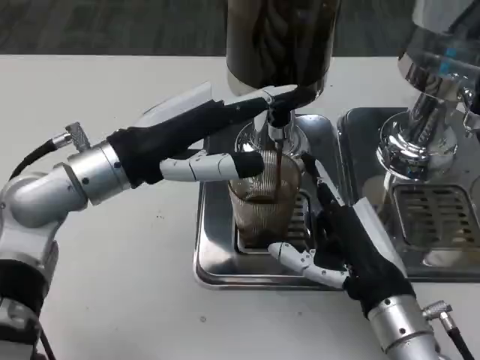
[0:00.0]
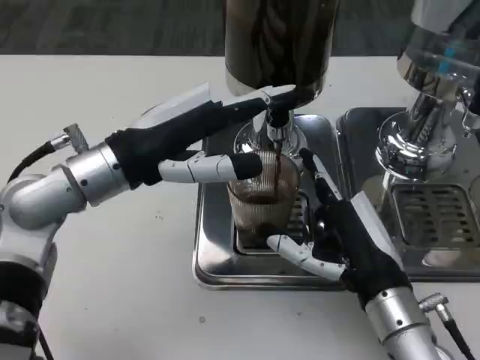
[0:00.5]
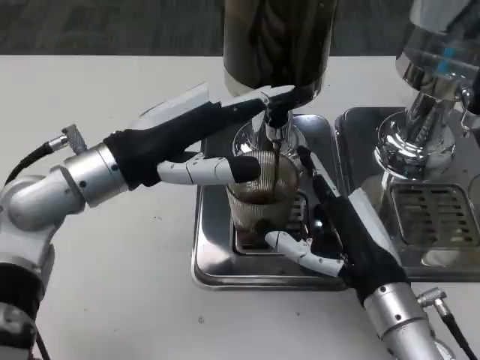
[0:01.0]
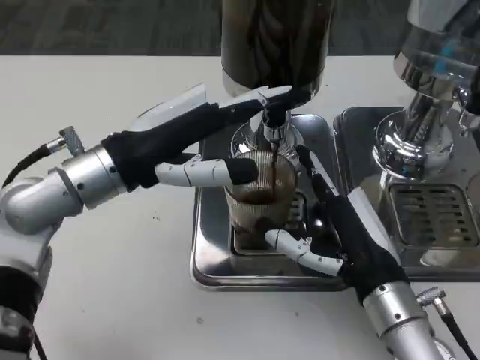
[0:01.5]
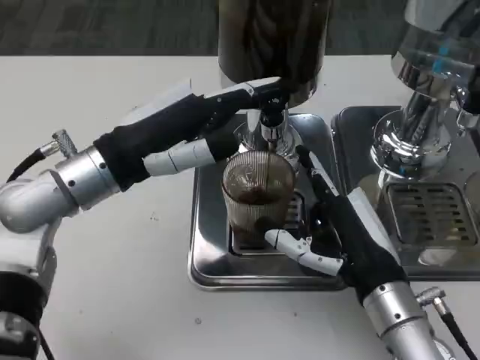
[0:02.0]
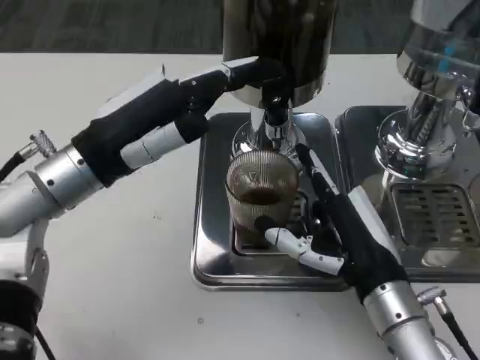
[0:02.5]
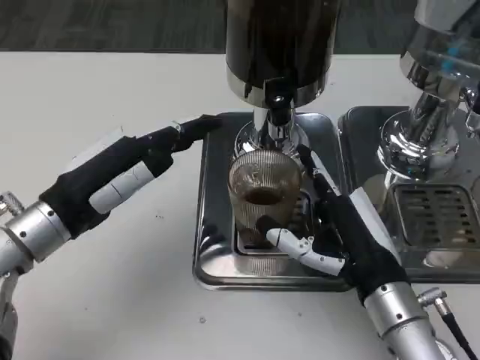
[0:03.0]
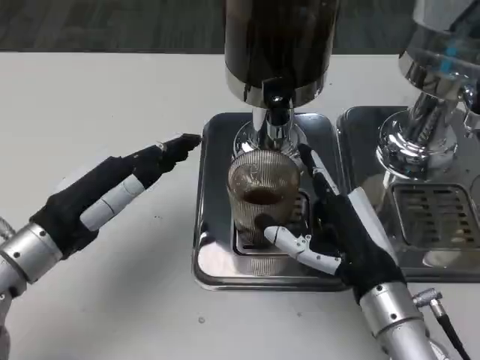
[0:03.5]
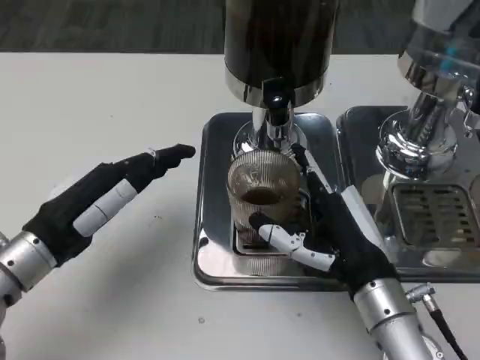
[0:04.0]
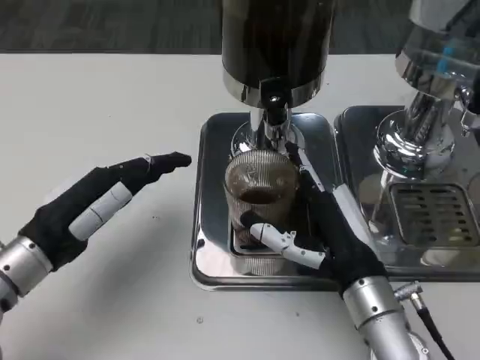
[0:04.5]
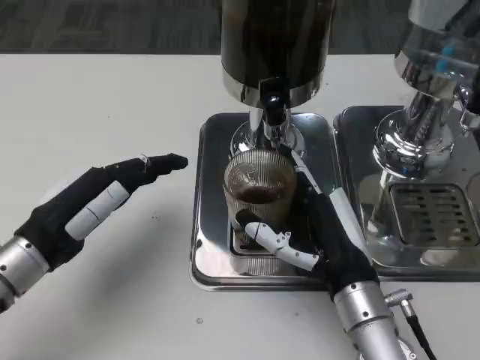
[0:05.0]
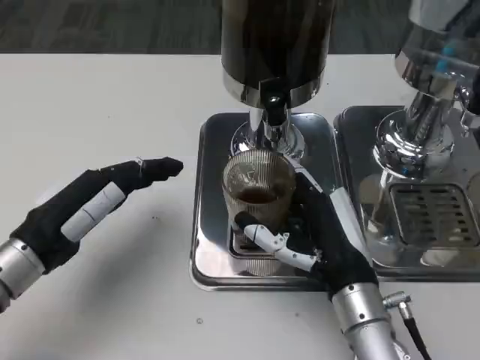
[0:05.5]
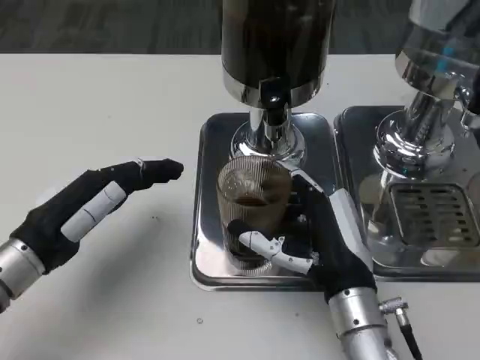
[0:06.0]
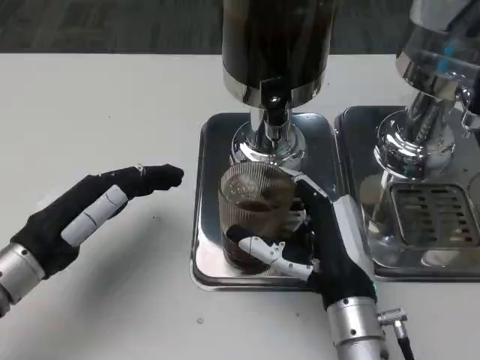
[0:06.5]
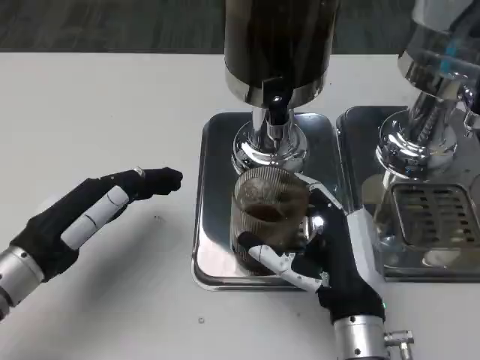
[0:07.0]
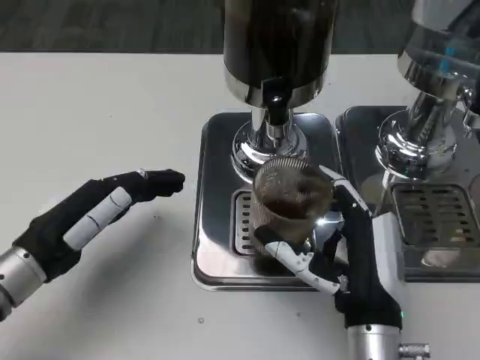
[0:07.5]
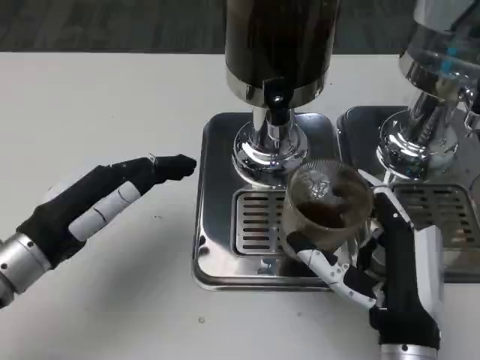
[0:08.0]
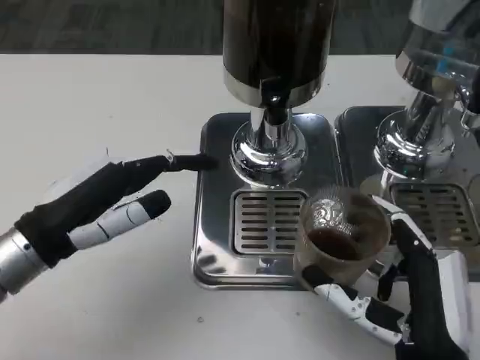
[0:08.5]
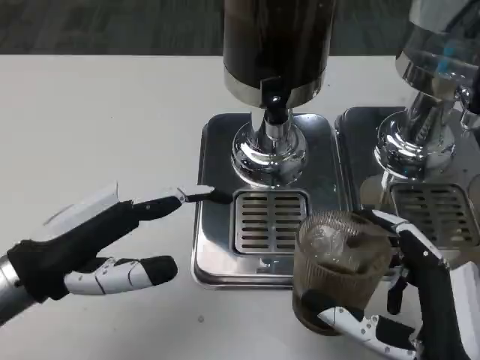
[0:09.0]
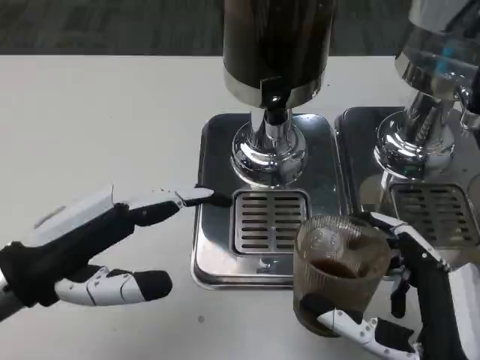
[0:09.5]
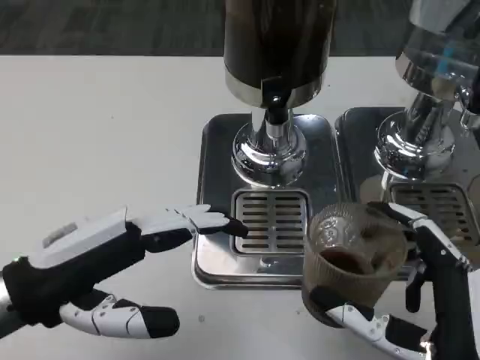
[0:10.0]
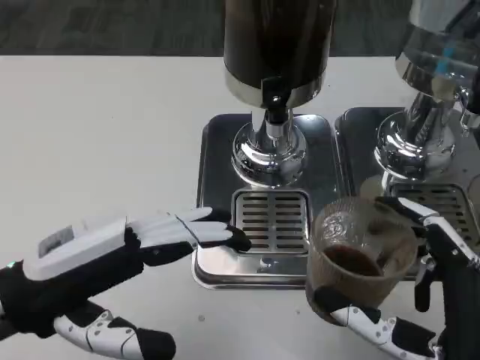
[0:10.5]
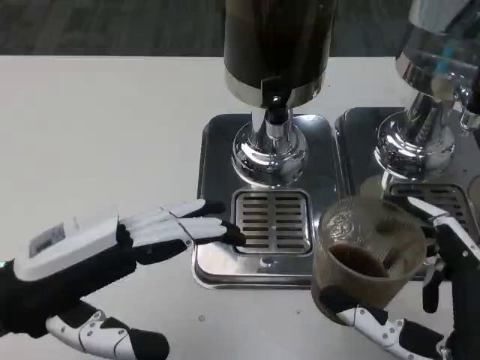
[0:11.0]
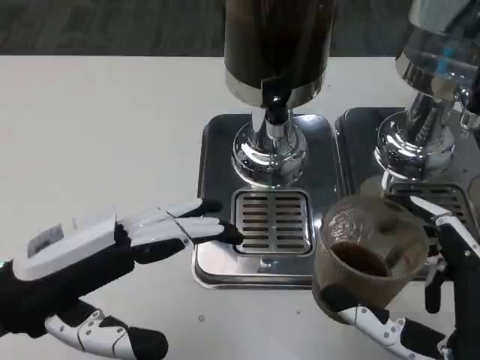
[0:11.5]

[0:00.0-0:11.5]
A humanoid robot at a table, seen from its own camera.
Task of the whole recording: Grasp the cup under the faucet to collect the drink, then remove the cup.
0:02.0 to 0:04.0: The left hand heads downward, to the left and backward, covering approximately 10 cm.
0:07.5 to 0:09.5: The right hand moves backward and to the right, roughly 10 cm. Meanwhile the left hand goes roughly 5 cm upward.

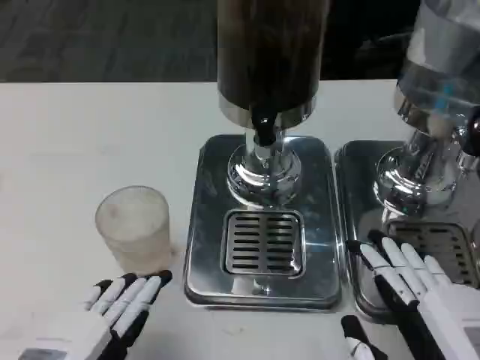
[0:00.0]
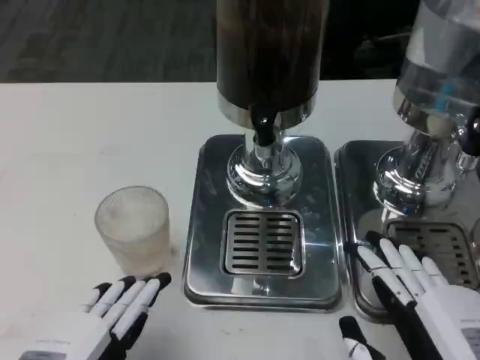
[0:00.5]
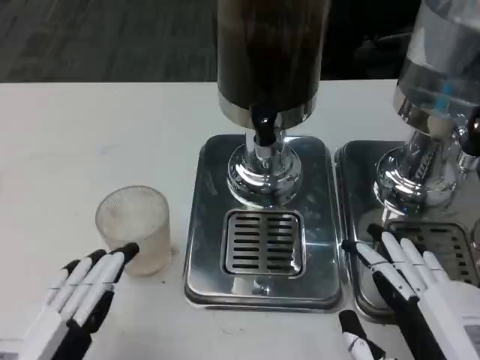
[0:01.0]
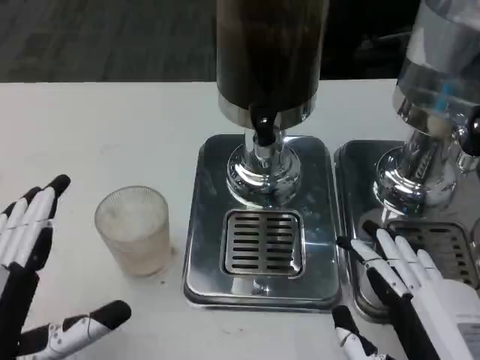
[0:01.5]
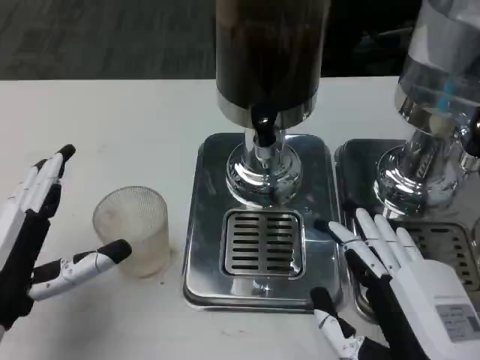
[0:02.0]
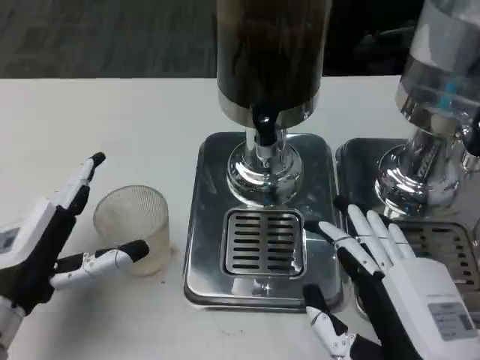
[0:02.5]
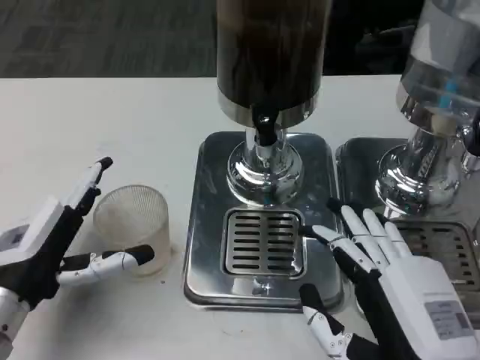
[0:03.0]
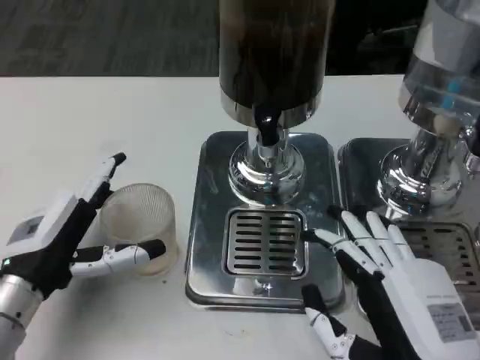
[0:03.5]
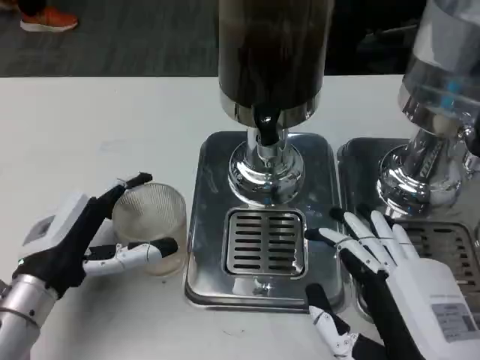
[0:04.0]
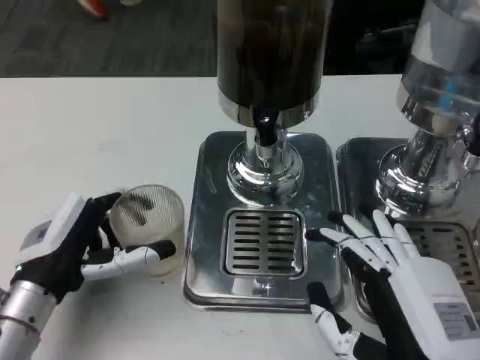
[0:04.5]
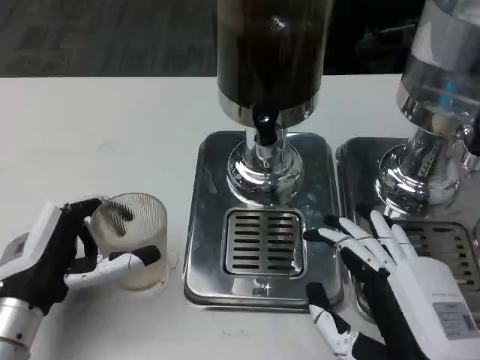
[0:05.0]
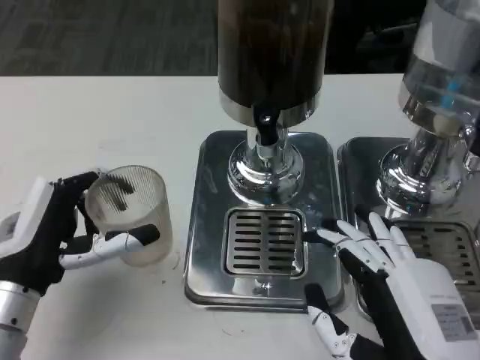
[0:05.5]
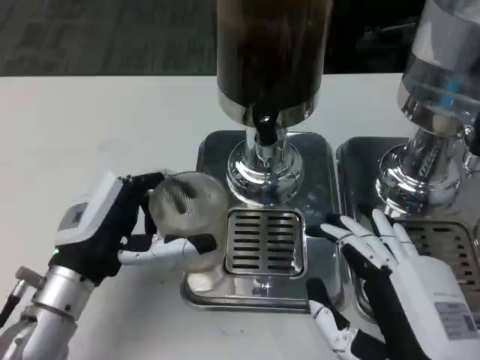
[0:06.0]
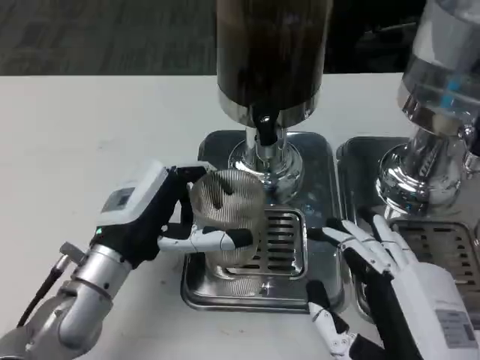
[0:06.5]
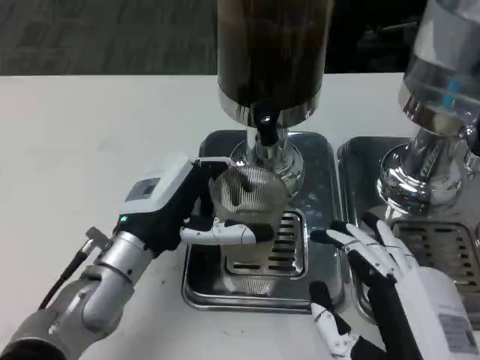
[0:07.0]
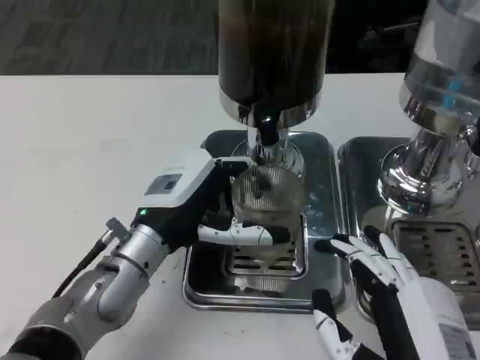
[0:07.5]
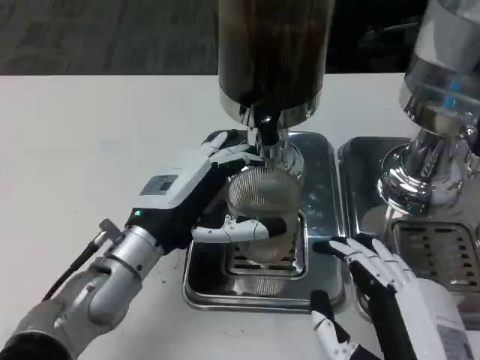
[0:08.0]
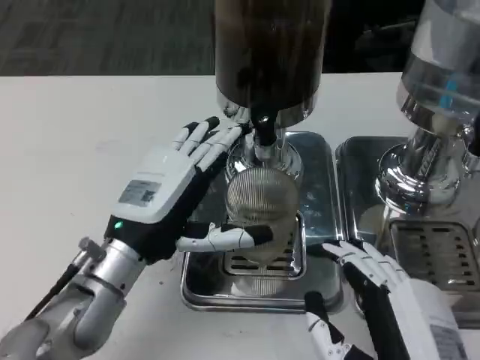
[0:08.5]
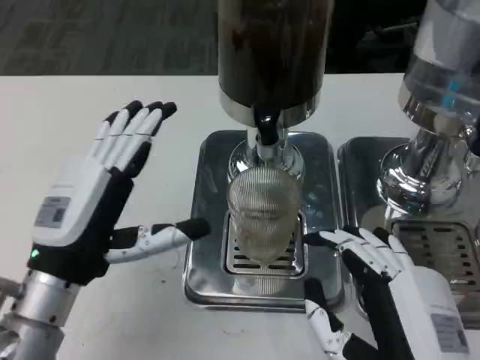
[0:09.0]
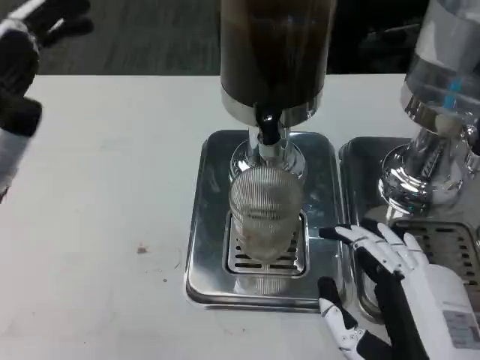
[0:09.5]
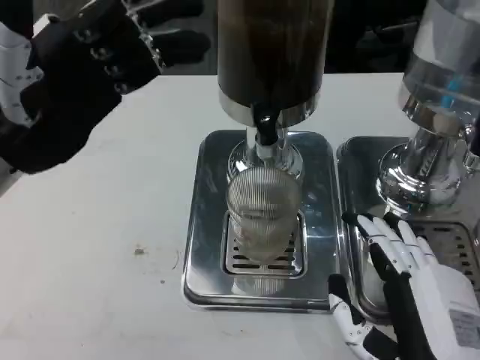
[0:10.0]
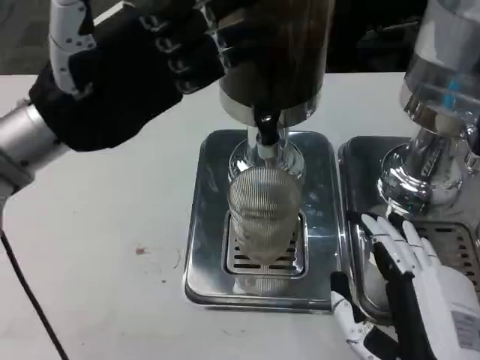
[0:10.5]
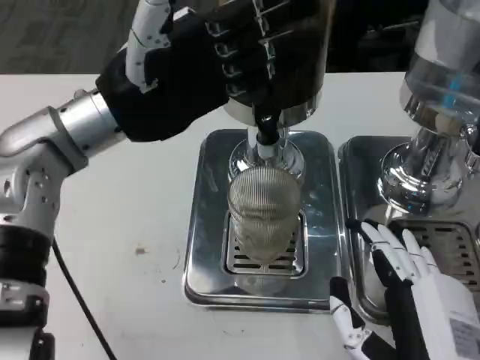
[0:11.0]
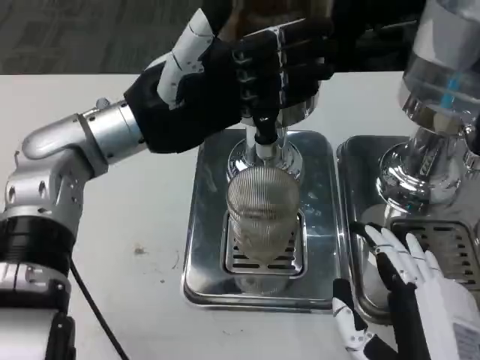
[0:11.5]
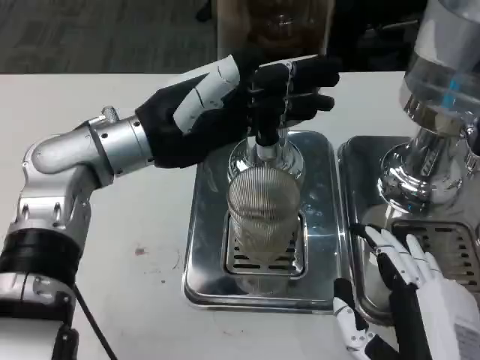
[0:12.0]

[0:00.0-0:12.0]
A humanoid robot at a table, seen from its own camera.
Task of the whole recording: Grasp the cup under the faucet to collect the drink, then remove the cup.
0:00.0 to 0:02.0: The left hand travels forward by about 10 cm.
0:02.0 to 0:04.0: The left hand heads forward, covering some 5 cm.
0:06.0 to 0:08.0: The left hand goes approximately 5 cm to the right.
0:08.0 to 0:10.0: The left hand travels upward and to the left by roughly 15 cm.
0:10.0 to 0:12.0: The left hand moves to the right and forward, roughly 10 cm.

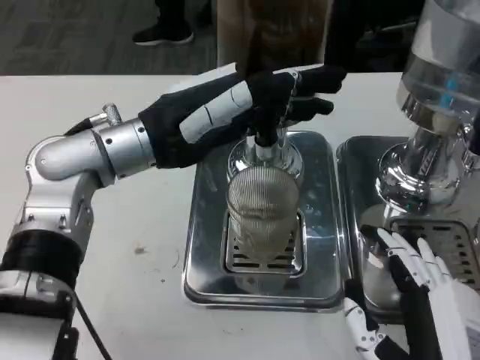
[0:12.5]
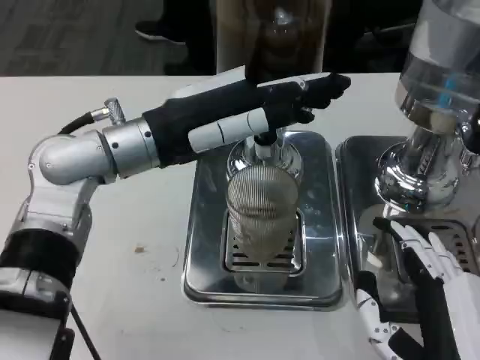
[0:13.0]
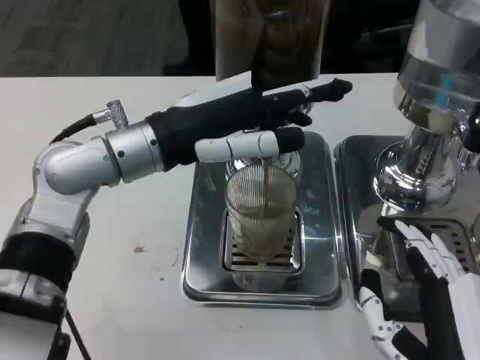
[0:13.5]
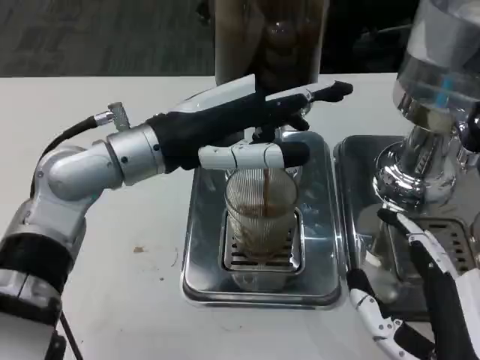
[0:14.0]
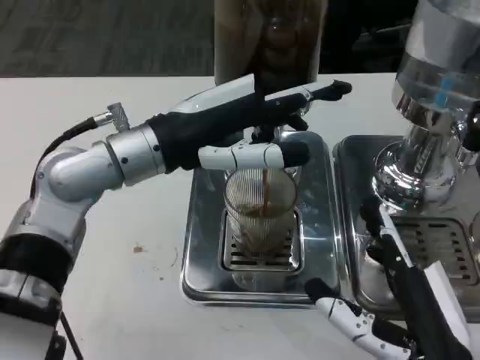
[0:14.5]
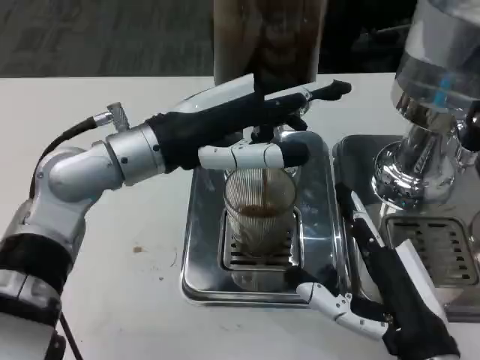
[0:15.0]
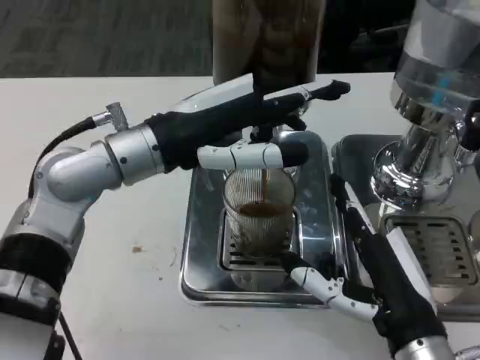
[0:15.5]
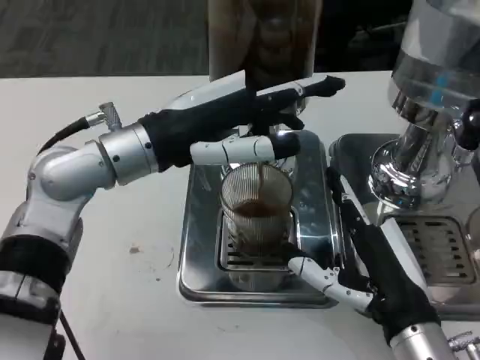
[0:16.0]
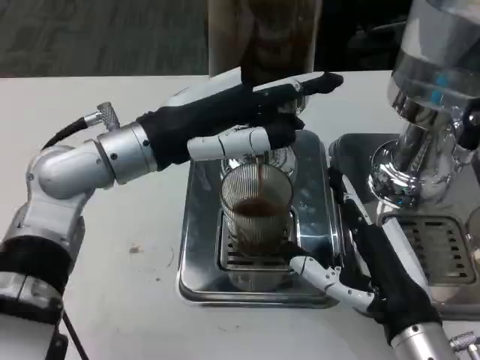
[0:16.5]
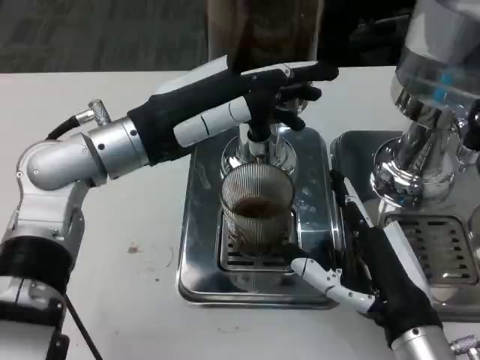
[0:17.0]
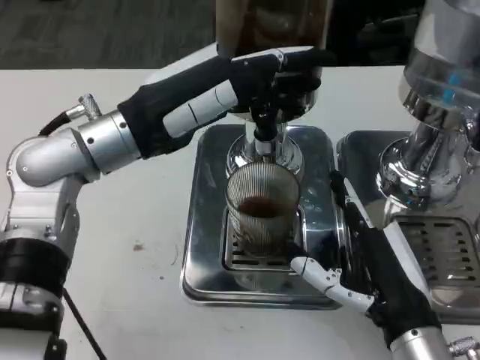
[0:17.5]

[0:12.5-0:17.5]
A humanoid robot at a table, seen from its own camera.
Task of the whole recording: Grasp the cup under the faucet to collect the drink, then remove the cup.
0:12.5 to 0:15.0: The right hand shifts some 5 cm forward.
